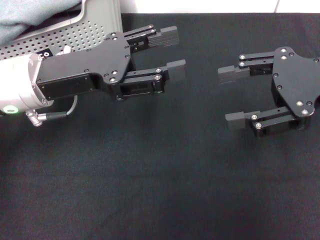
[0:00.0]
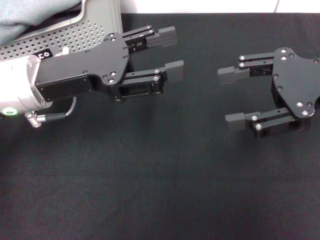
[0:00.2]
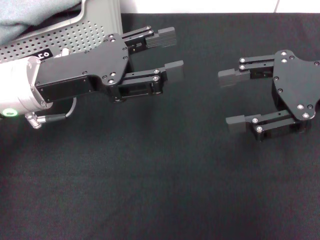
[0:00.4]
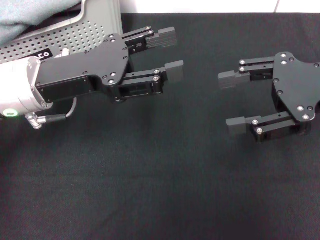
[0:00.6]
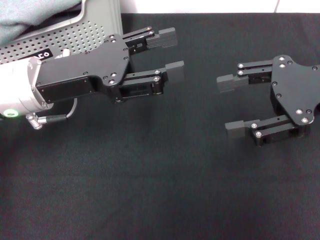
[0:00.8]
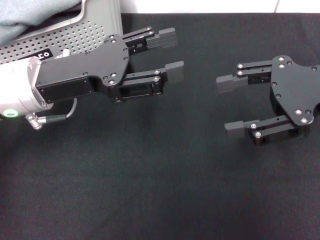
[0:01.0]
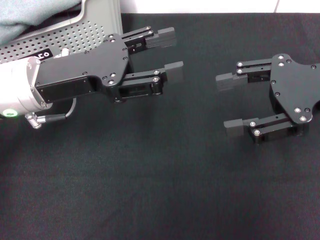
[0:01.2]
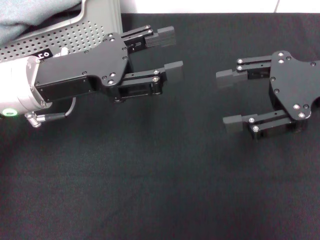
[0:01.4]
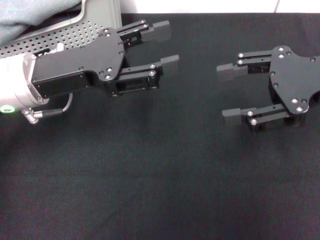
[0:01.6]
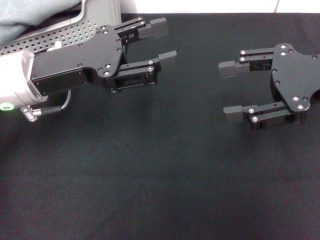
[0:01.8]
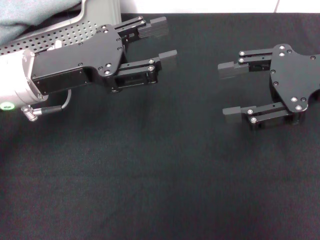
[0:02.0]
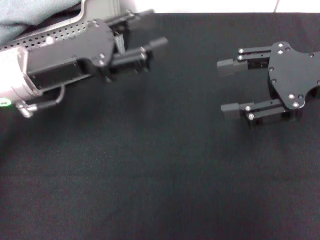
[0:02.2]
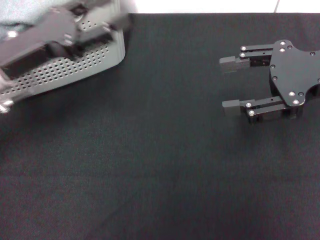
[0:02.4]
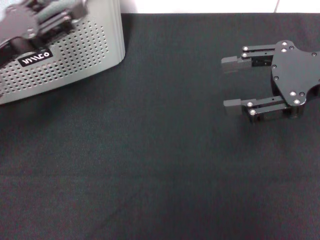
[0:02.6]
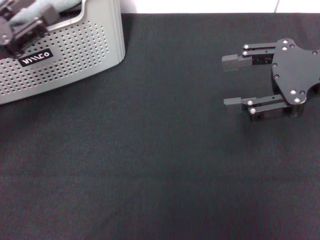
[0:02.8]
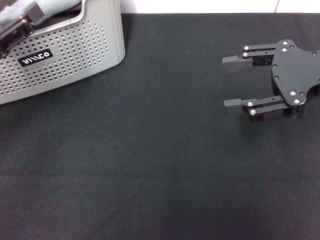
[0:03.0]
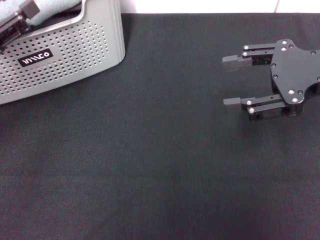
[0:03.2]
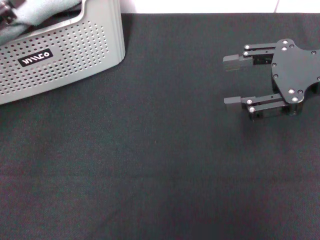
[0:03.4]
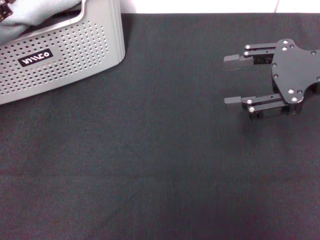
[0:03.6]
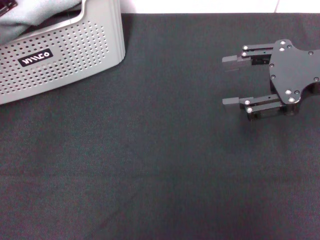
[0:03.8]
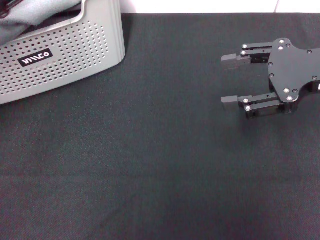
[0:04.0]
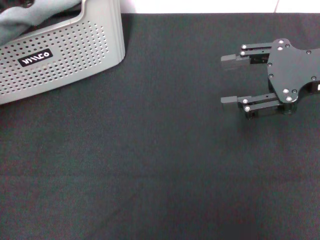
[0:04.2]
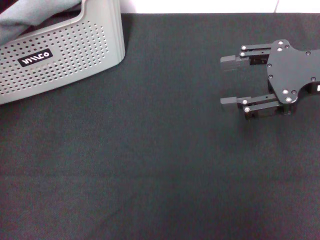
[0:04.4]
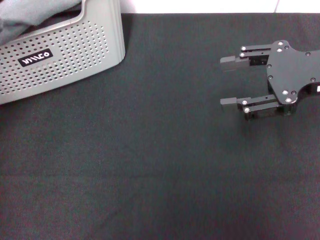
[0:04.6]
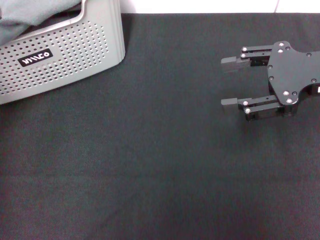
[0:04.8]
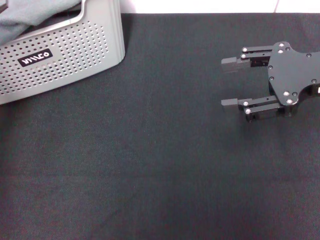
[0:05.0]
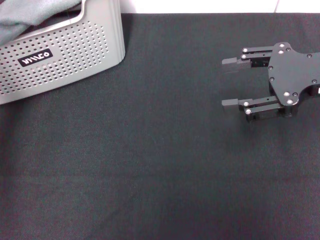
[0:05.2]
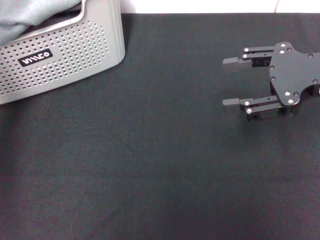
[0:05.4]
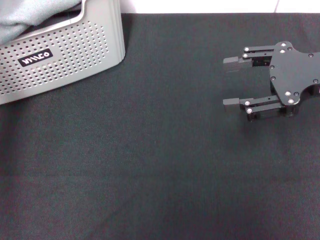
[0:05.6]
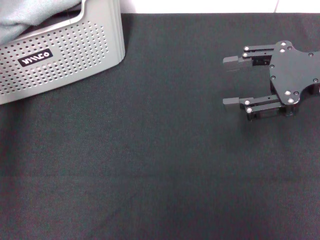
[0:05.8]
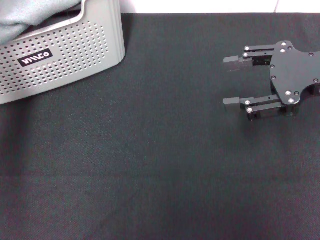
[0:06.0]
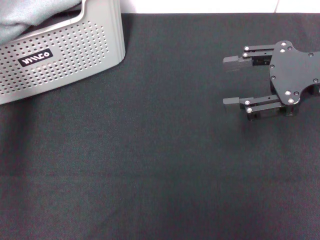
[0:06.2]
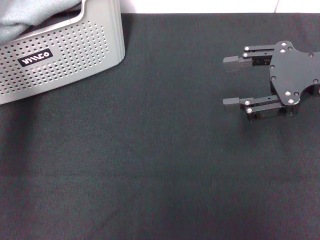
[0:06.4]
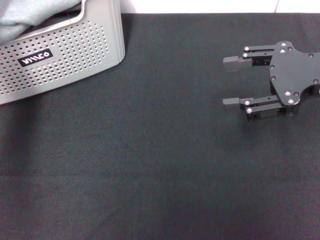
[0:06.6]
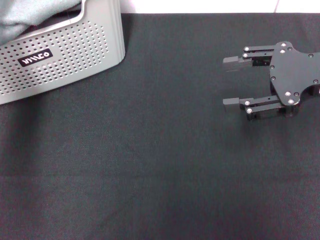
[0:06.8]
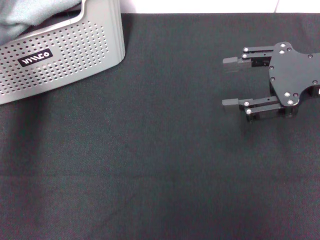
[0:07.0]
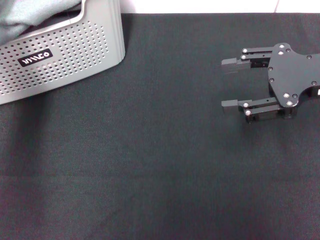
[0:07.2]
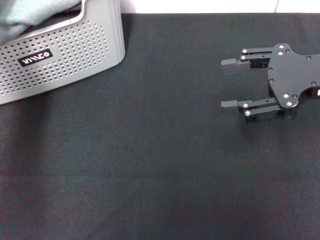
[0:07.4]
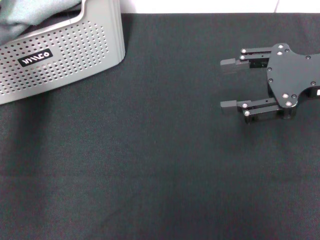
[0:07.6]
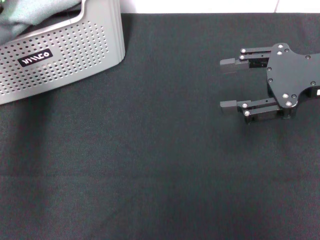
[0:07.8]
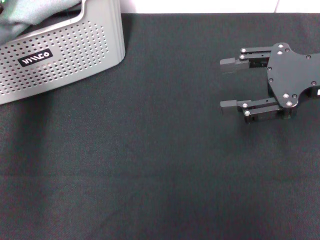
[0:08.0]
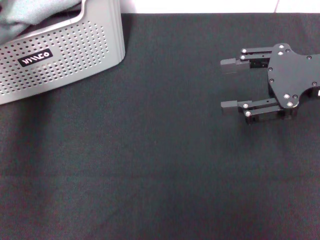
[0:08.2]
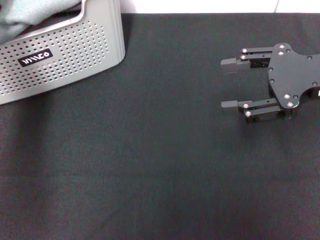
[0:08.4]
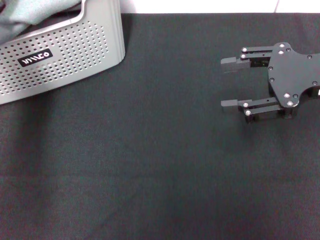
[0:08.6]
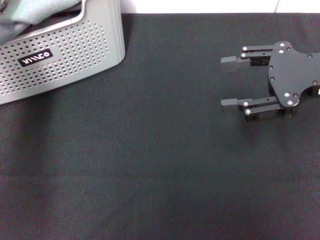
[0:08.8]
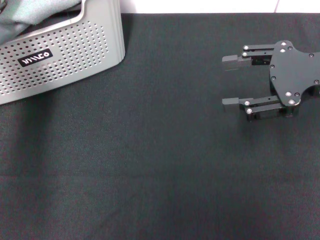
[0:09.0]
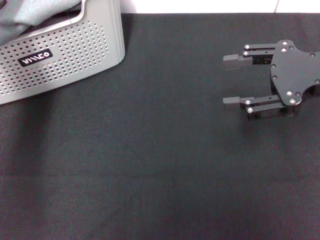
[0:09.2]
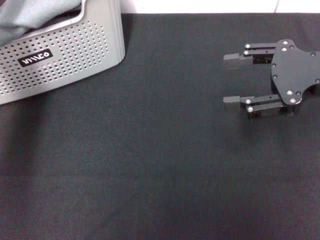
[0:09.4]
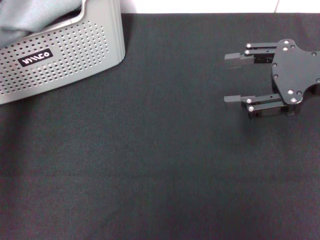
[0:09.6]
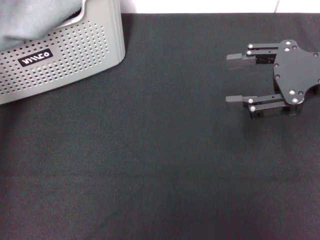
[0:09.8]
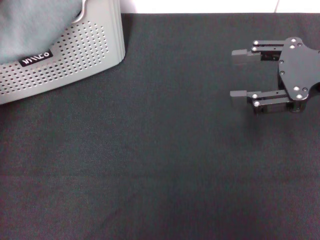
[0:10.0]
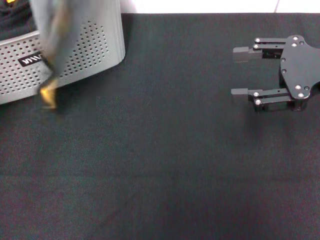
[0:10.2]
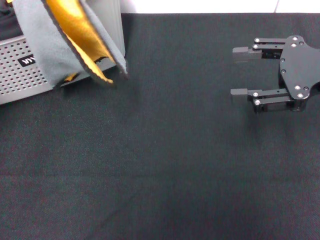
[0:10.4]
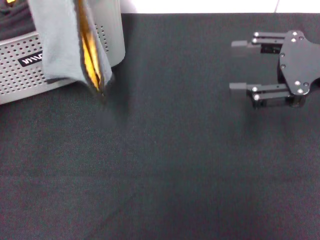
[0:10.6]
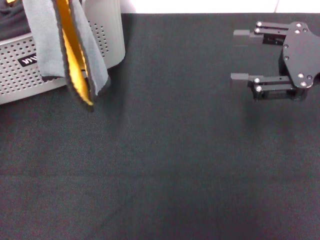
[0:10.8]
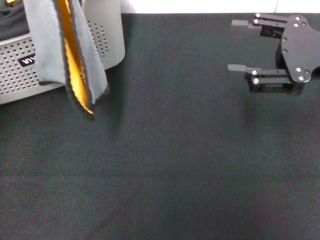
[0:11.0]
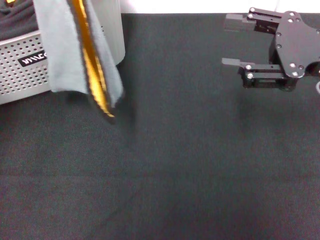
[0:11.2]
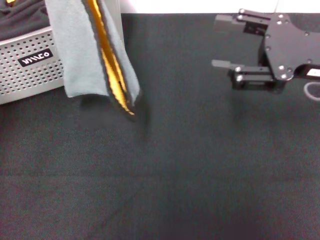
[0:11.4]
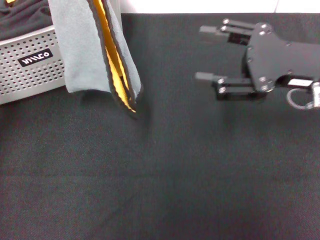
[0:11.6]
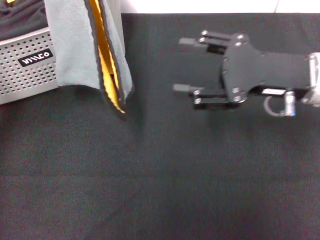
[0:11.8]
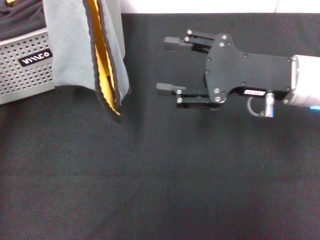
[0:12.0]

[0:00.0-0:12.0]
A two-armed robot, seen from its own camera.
Task of the whole recording: pick up the towel from the storage box and lay it flat on the black tablecloth.
Step, 0:00.0 to 0:09.8: Pick up a towel with the left gripper.
0:00.0 to 0:01.6: Neither gripper changes place.
0:01.6 to 0:03.0: The left gripper travels to the left by some 10 cm.
0:03.0 to 0:04.4: The left gripper heads forward, covering about 10 cm.
0:04.4 to 0:06.0: The left gripper travels forward by some 5 cm.
0:06.0 to 0:07.6: The left gripper goes some 5 cm downward.
0:09.0 to 0:10.4: The left gripper travels backward and upward by roughly 15 cm.
0:10.4 to 0:12.0: The right gripper heads to the left, covering some 10 cm.

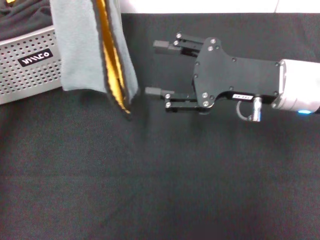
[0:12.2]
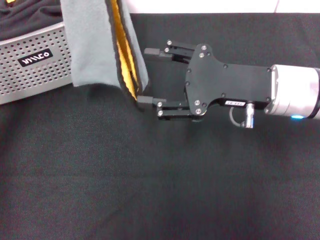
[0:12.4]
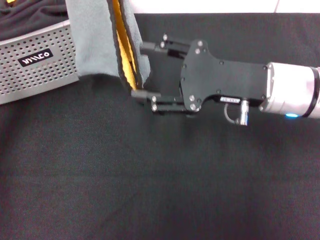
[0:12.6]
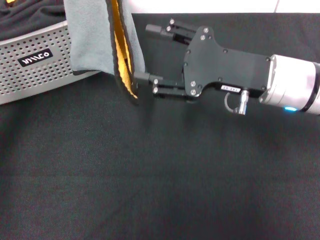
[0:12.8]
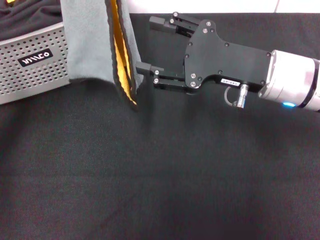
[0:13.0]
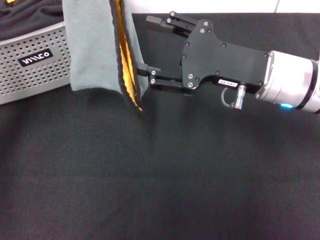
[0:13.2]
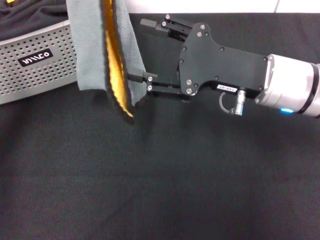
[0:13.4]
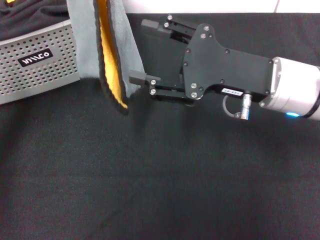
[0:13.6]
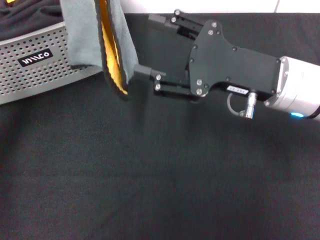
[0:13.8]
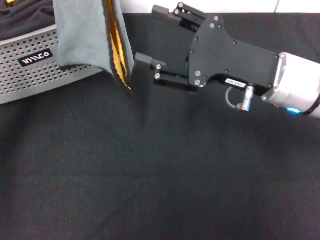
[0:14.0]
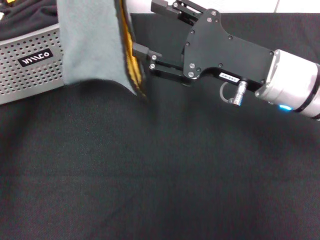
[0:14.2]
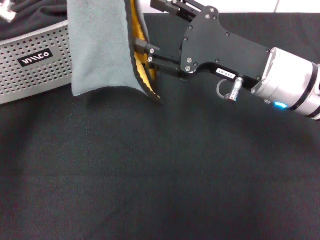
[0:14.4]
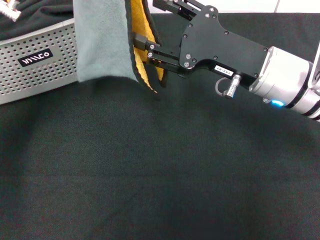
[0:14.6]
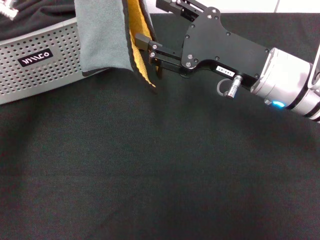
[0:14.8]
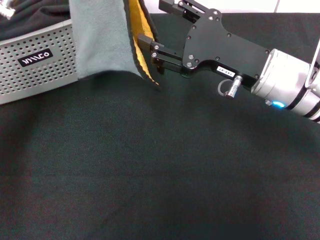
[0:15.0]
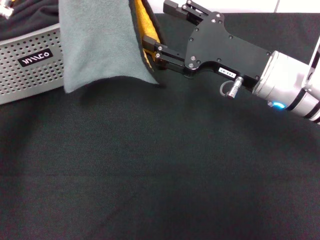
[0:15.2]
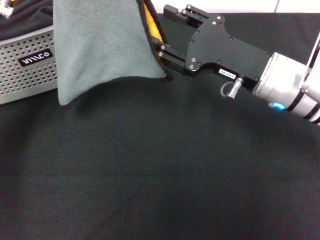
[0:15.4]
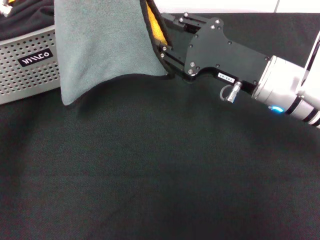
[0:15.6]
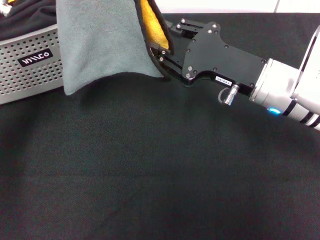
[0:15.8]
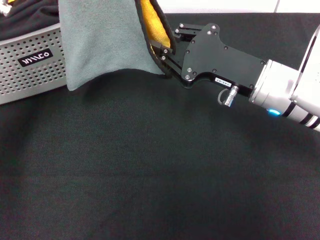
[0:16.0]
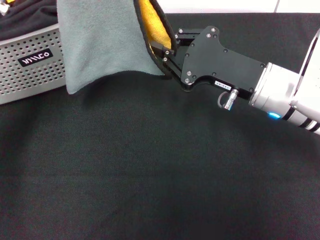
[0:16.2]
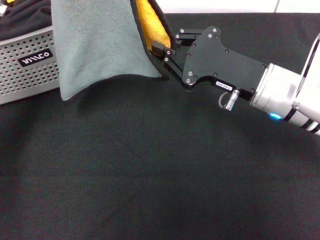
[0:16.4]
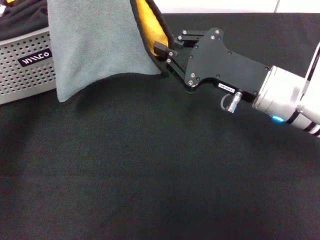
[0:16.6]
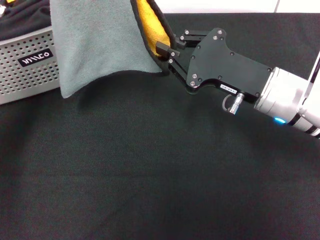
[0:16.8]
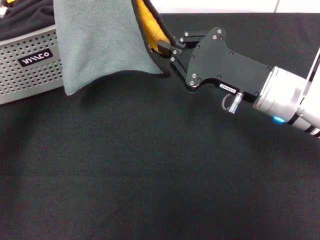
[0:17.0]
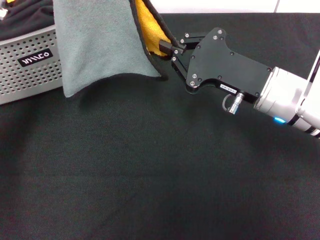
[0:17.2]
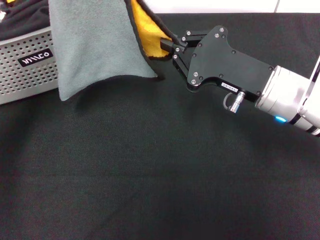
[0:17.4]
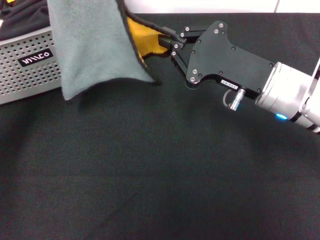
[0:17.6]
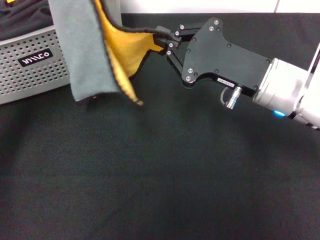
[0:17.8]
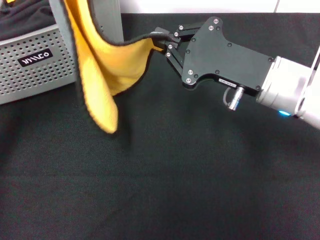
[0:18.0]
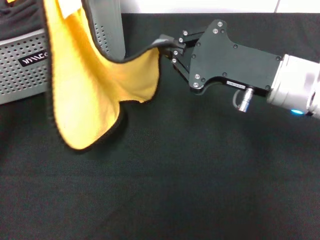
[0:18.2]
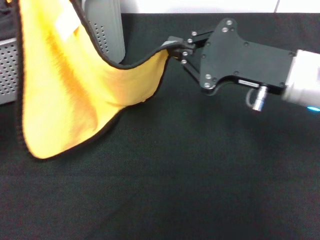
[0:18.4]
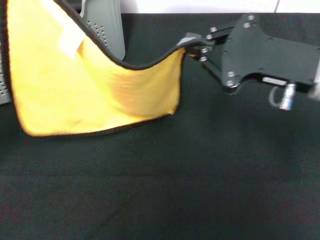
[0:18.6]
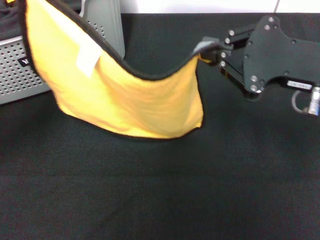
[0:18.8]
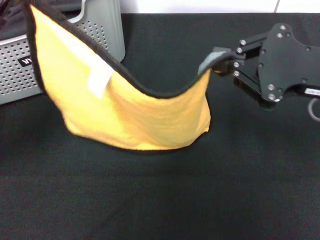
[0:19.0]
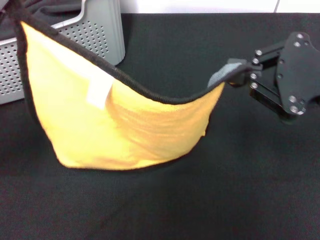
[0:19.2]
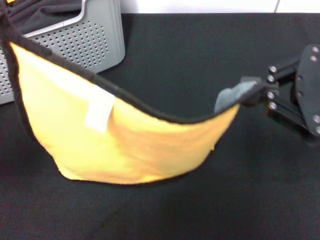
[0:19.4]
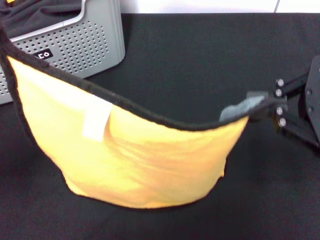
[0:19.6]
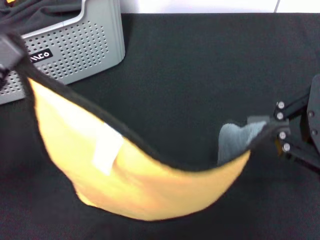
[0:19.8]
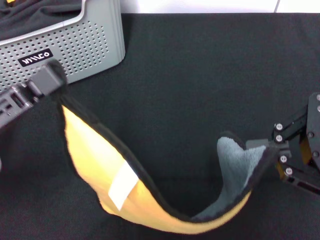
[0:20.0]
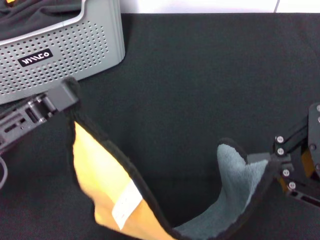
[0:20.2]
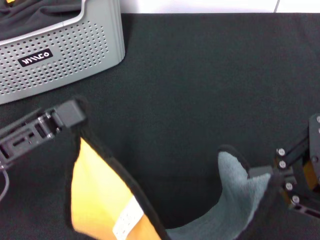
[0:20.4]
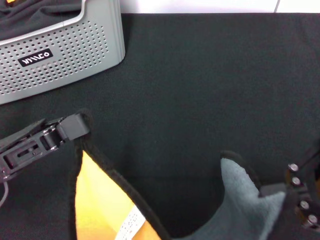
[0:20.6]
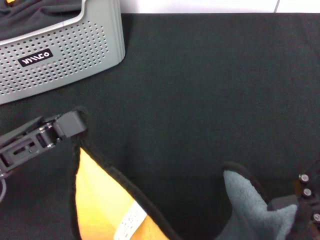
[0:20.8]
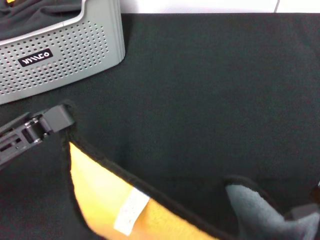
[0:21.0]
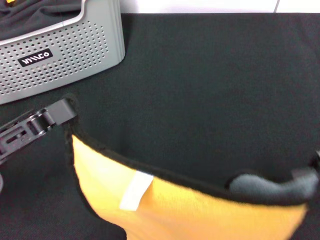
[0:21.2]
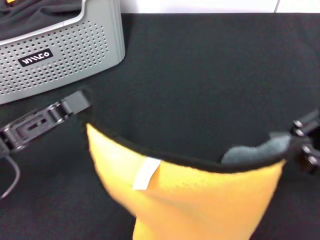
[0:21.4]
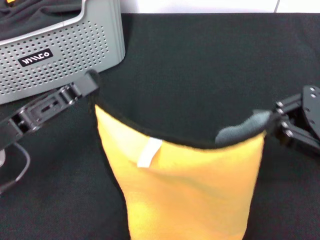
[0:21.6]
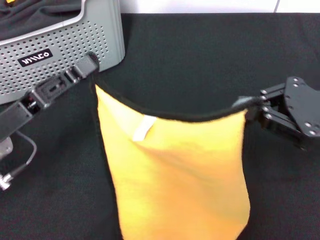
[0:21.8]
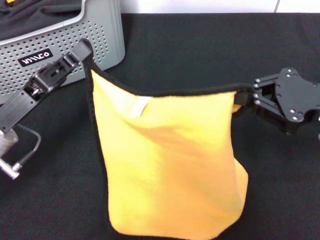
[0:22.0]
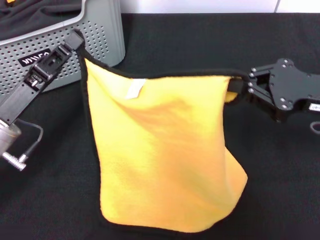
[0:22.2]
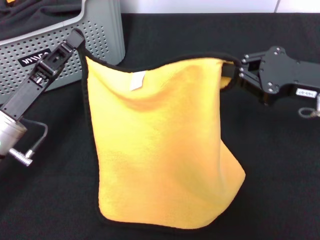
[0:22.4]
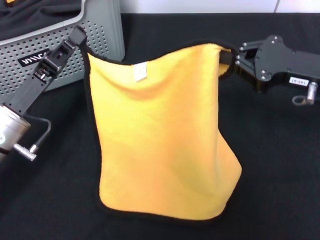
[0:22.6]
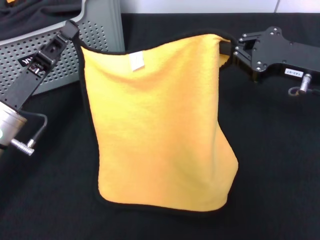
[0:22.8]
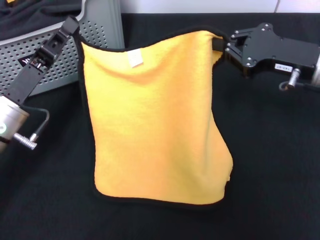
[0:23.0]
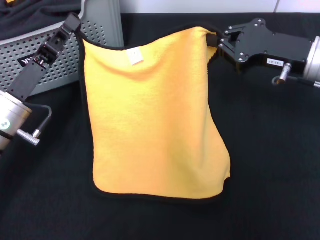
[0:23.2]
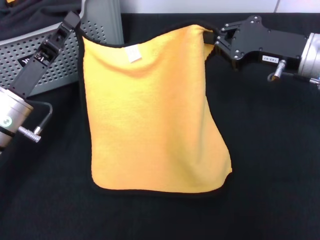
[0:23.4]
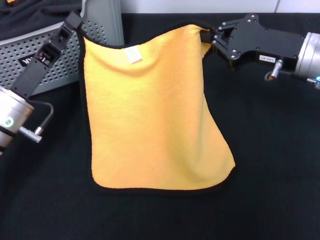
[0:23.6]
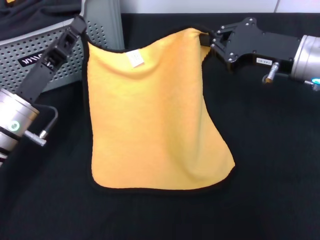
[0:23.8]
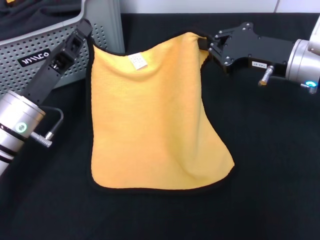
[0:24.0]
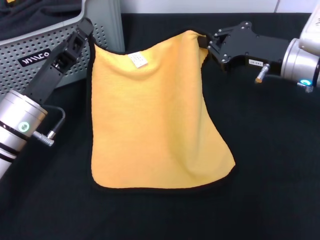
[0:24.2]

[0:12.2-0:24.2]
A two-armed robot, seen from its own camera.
Task of the whole recording: pick up the towel from the storage box and lay it flat on the black tablecloth.
Step, 0:12.2 to 0:17.2: Spread the towel flat with the left gripper.
0:13.8 to 0:15.2: There are only small adjustments of the grippers.
0:15.2 to 0:16.6: The right gripper closes.
0:16.6 to 0:18.2: The left gripper shifts roughly 5 cm downward.
0:18.2 to 0:19.8: The right gripper moves to the right, backward and upward, some 15 cm, while the left gripper travels backward by roughly 10 cm.
0:21.2 to 0:22.6: The left gripper moves forward and downward, about 10 cm, while the right gripper goes about 15 cm forward and downward.
0:22.6 to 0:24.2: The right gripper changes place by approximately 5 cm.
